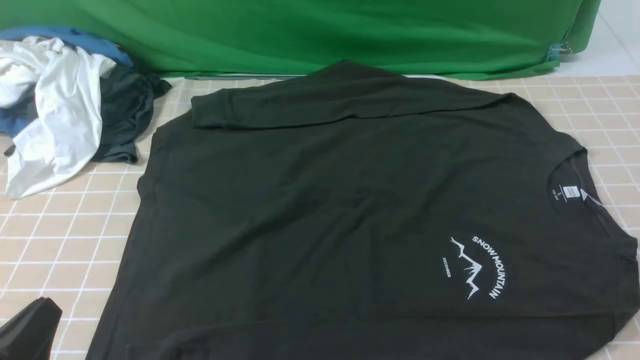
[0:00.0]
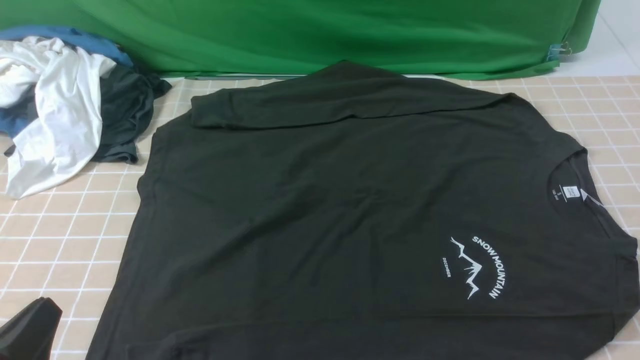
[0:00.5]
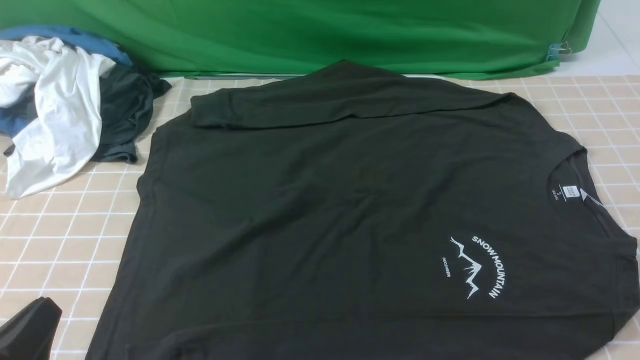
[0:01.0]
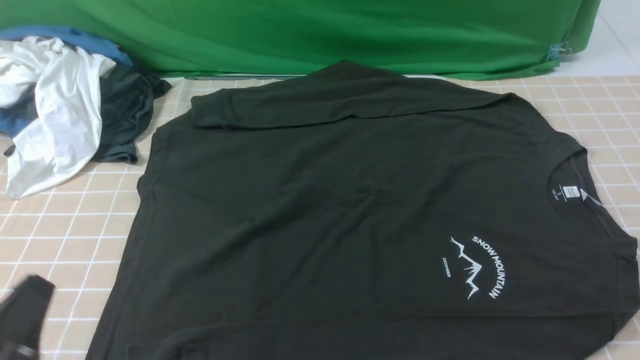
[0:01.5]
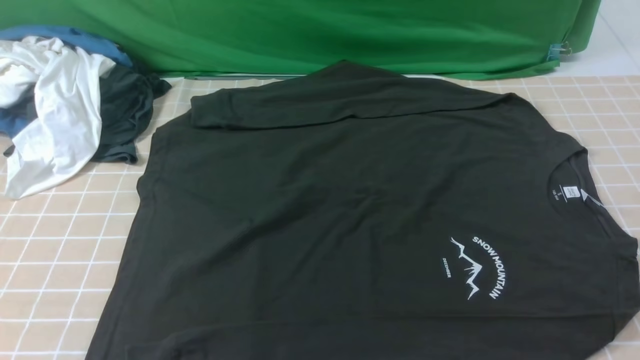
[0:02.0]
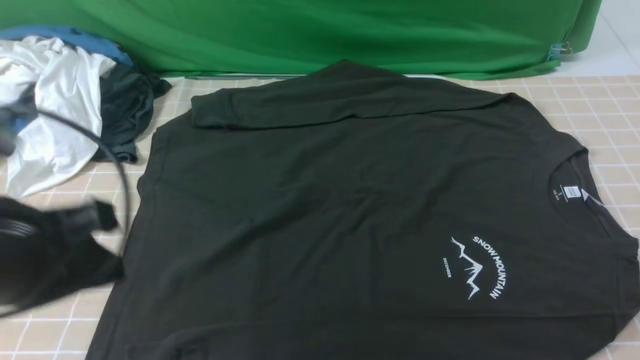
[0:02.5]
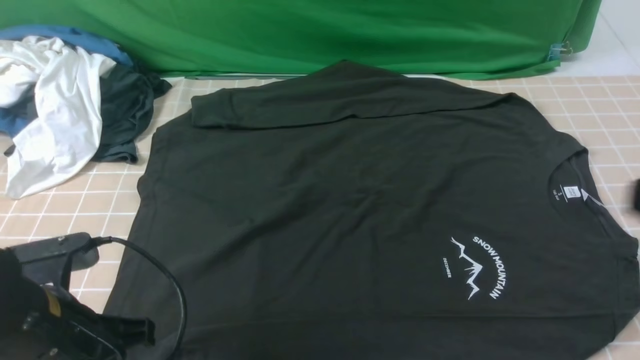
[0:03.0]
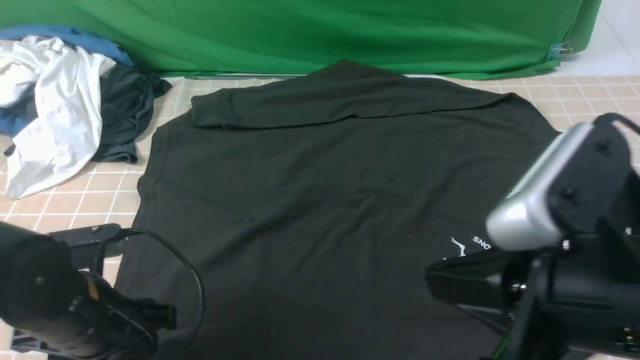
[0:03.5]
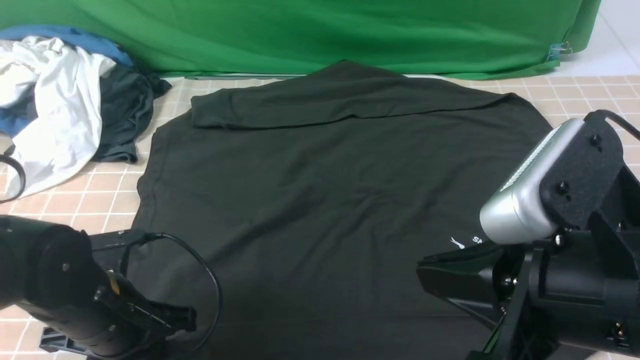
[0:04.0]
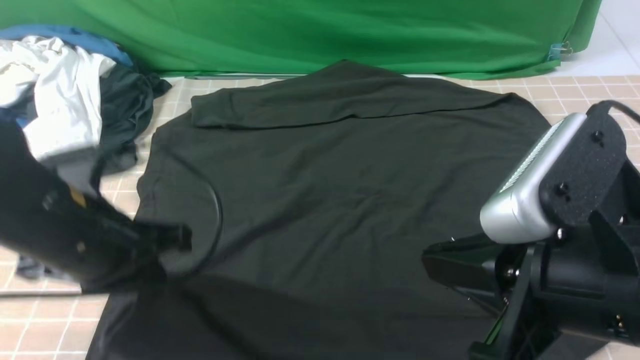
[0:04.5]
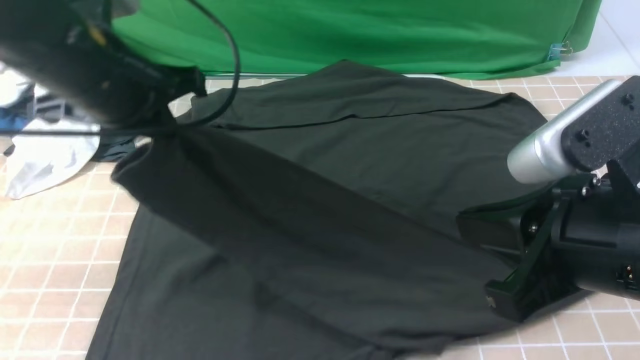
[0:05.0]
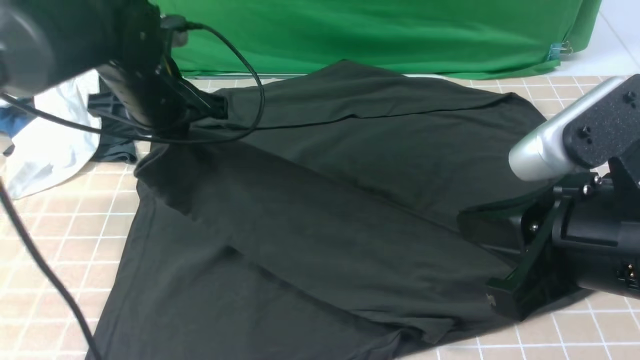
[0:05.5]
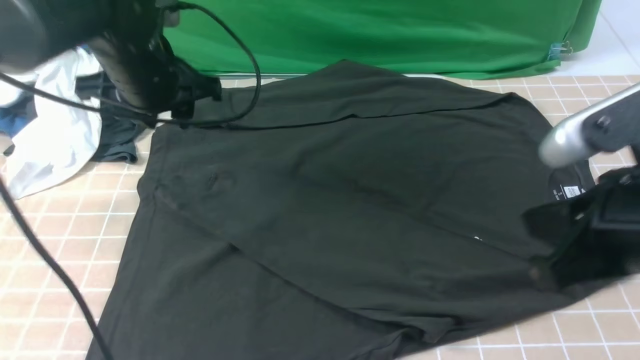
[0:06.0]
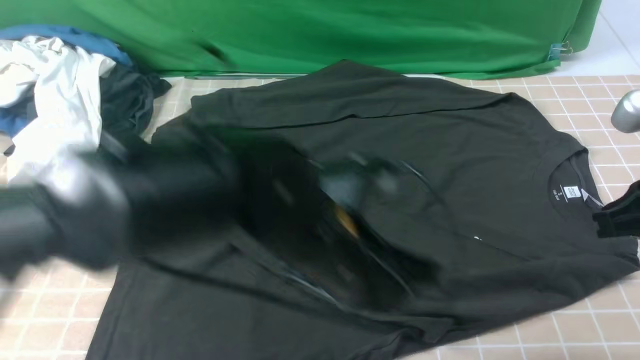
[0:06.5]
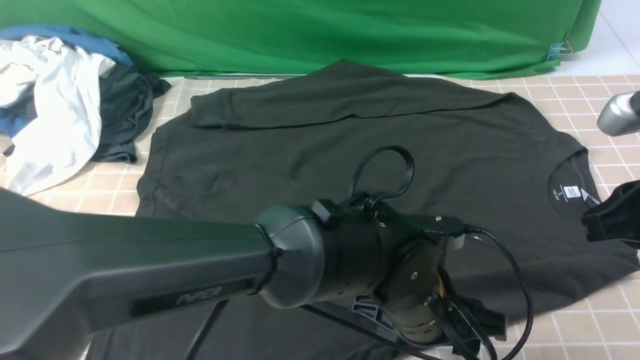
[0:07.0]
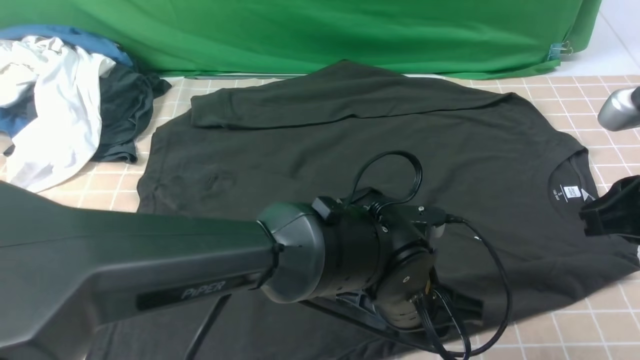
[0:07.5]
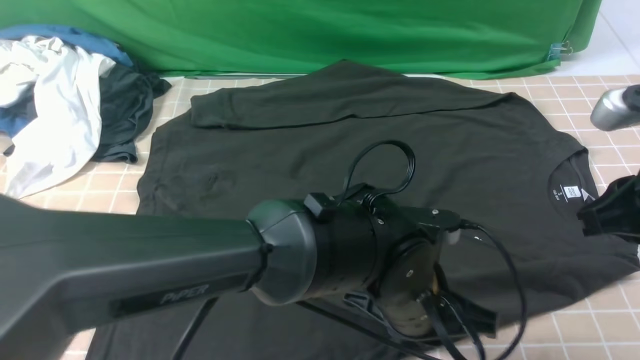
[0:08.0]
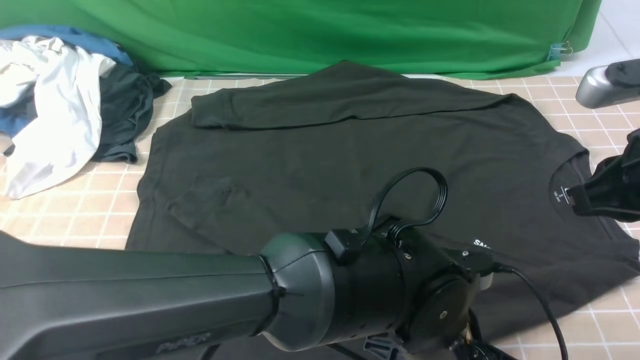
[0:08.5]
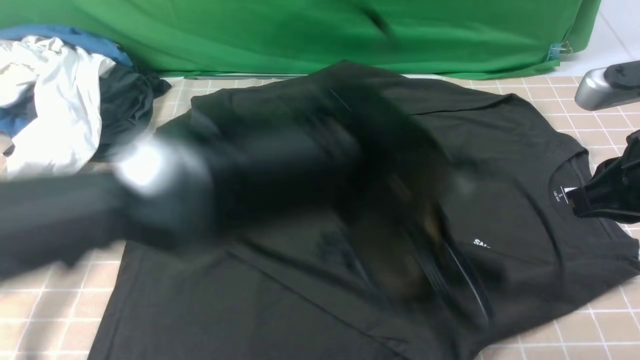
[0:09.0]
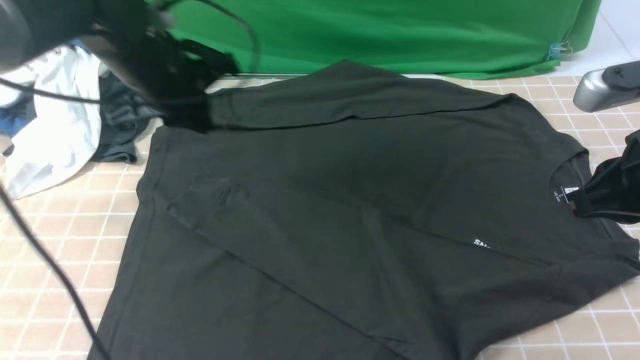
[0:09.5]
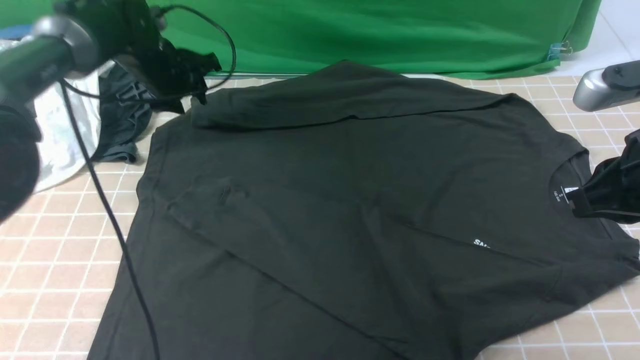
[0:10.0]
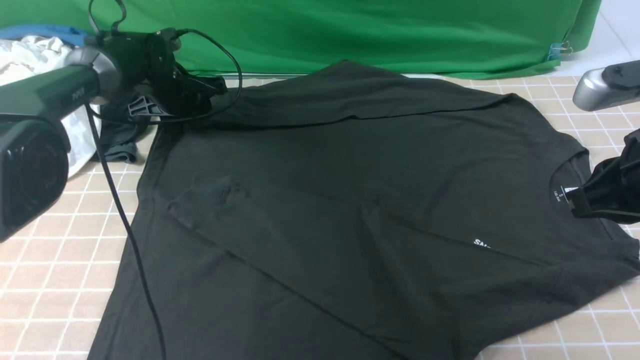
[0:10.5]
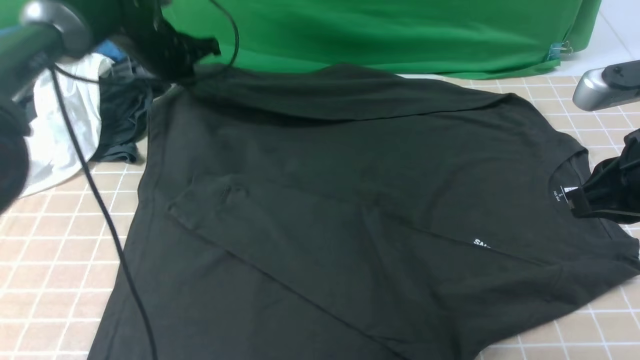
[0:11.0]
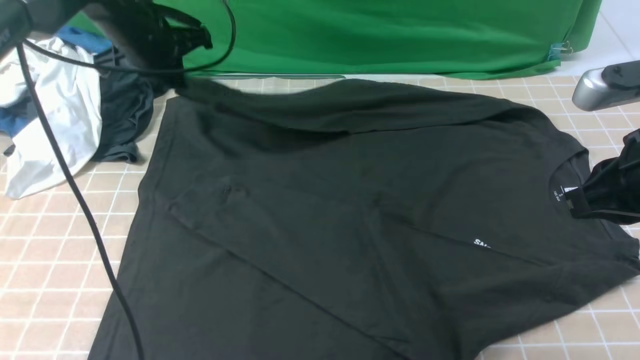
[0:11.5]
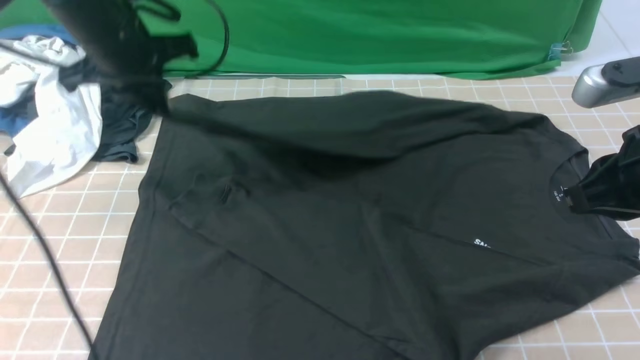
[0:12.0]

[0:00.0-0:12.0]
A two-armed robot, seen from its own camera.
Step, 0:00.0 to 0:04.0: use the left arm to clamp the cuff closest to it.
Step, 0:04.5 to 0:05.5: use the left arm to drag and place the cuff at the centered position on the left edge of the fabric.
Step, 0:06.0 to 0:10.5: use the left arm to clamp the cuff farthest from it.
0:00.0 to 0:02.0: The left gripper travels upward by about 15 cm.
0:02.0 to 0:04.0: The right gripper heads to the left and upward, covering about 20 cm, and closes up; the left gripper shifts roughly 20 cm forward and downward, and opens its fingers.
0:04.0 to 0:06.0: The right gripper shifts approximately 5 cm to the right. Meanwhile the left gripper heads forward and upward, covering some 20 cm.
0:06.0 to 0:08.0: The left gripper moves to the right, backward and downward, about 30 cm, and closes; the right gripper travels to the right and forward by some 5 cm.
0:08.0 to 0:10.0: The left gripper travels to the left and forward by roughly 40 cm, and opens.
0:10.0 to 0:12.0: The left gripper shifts about 15 cm backward and upward, and closes its fingers.

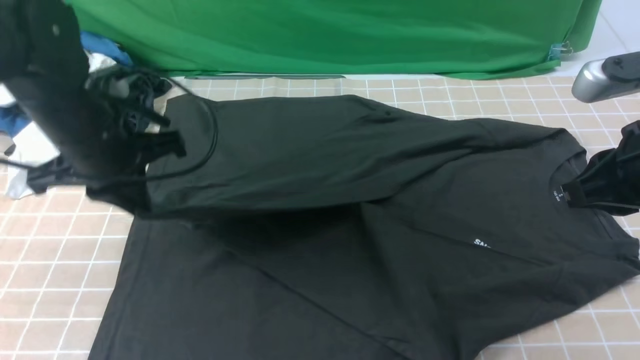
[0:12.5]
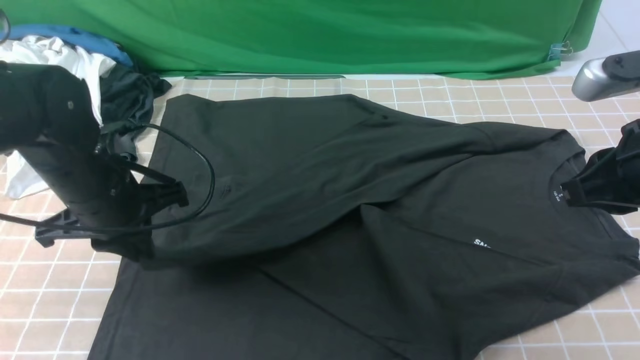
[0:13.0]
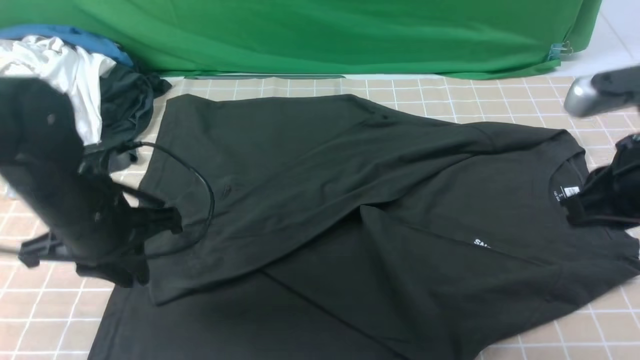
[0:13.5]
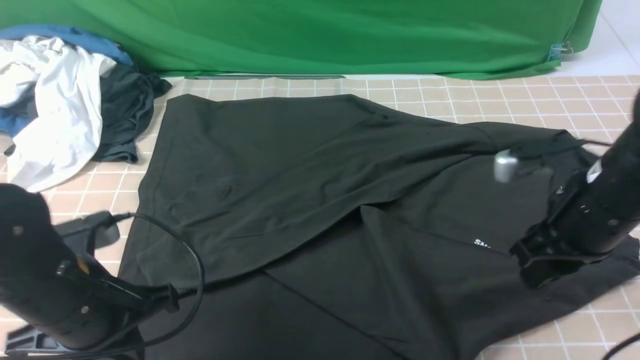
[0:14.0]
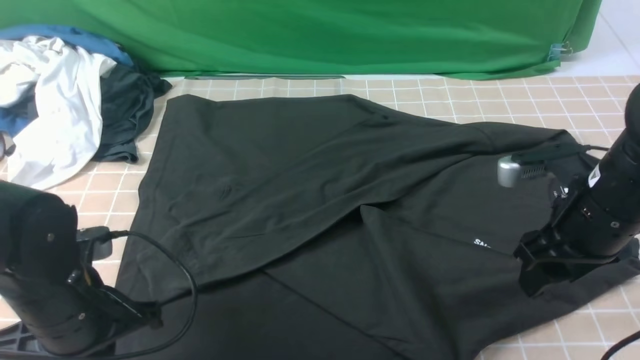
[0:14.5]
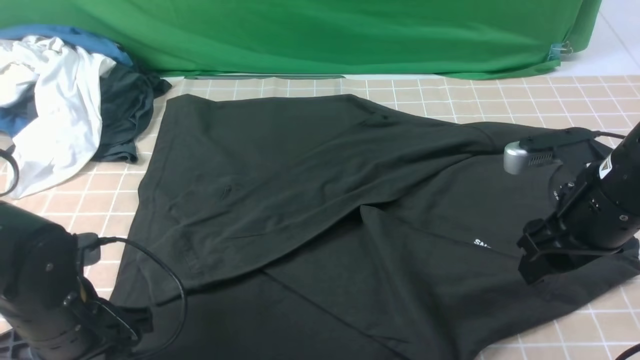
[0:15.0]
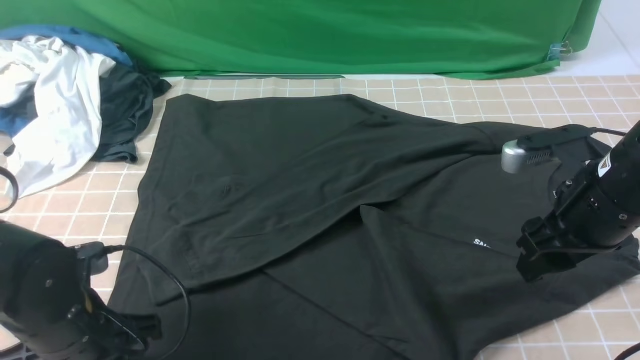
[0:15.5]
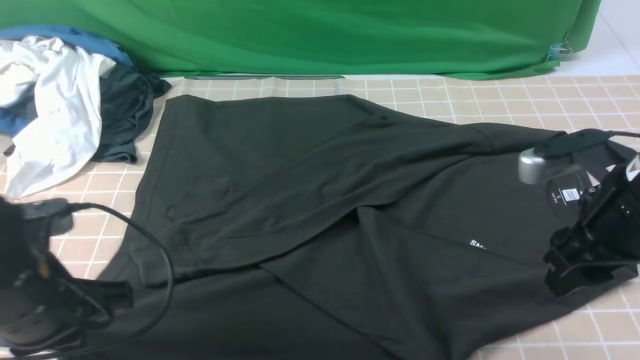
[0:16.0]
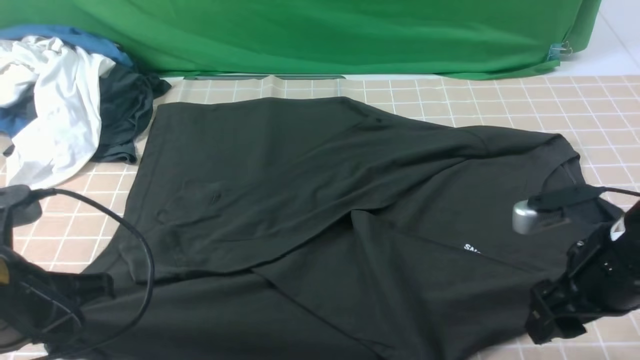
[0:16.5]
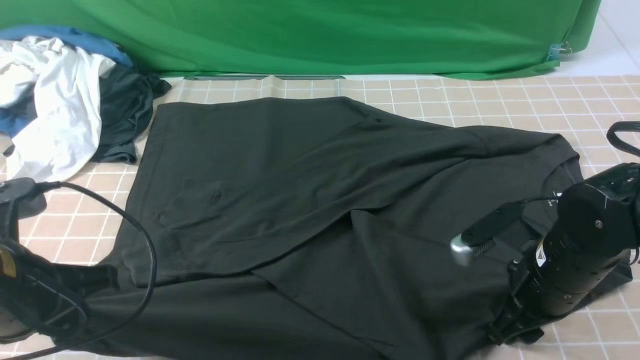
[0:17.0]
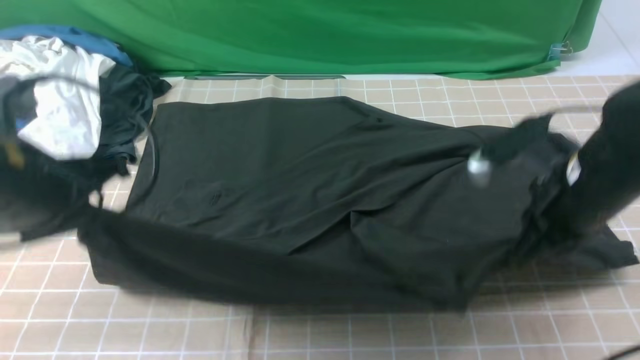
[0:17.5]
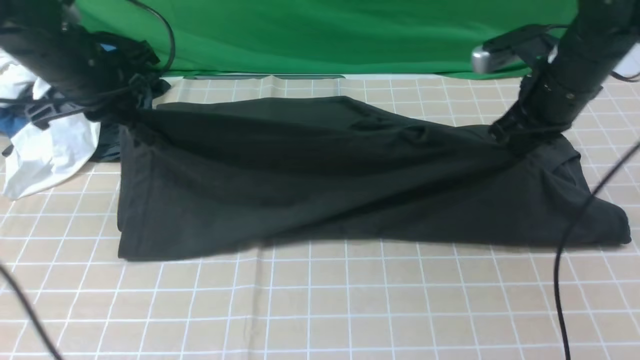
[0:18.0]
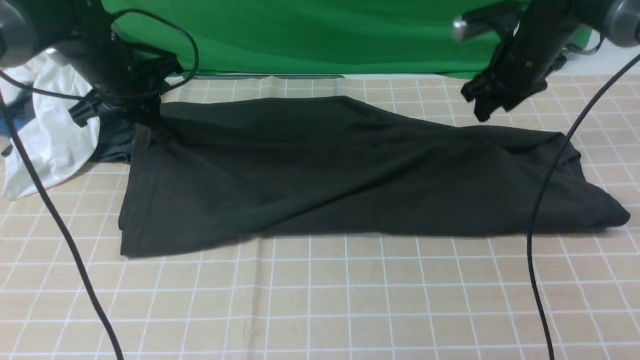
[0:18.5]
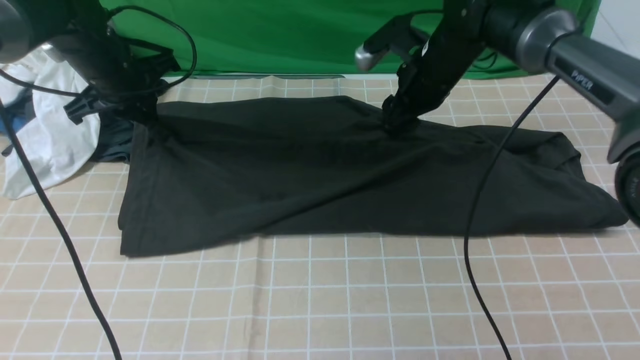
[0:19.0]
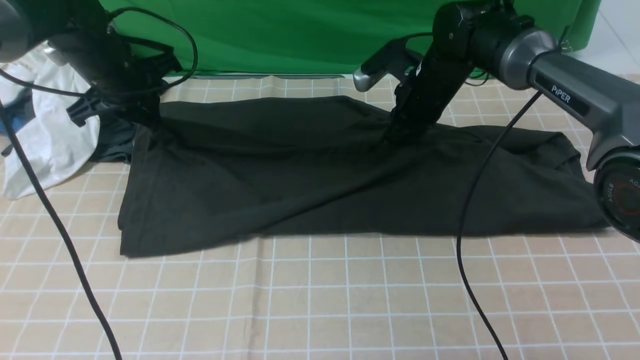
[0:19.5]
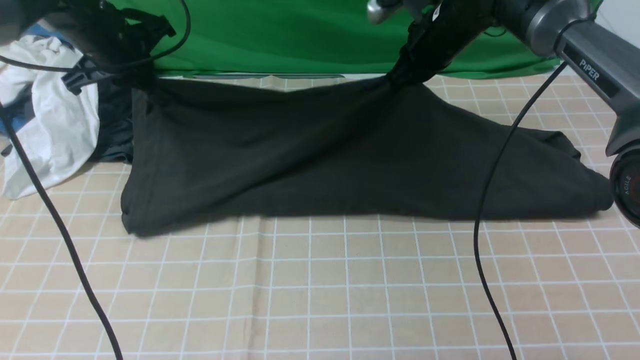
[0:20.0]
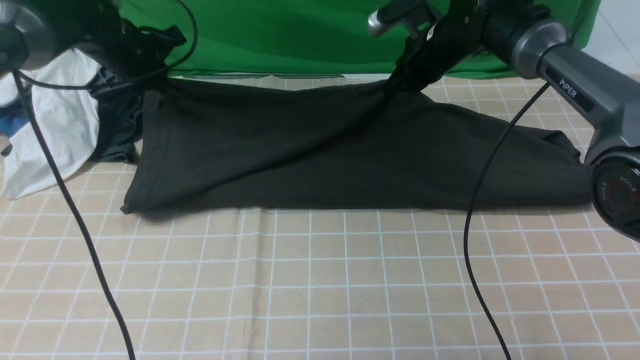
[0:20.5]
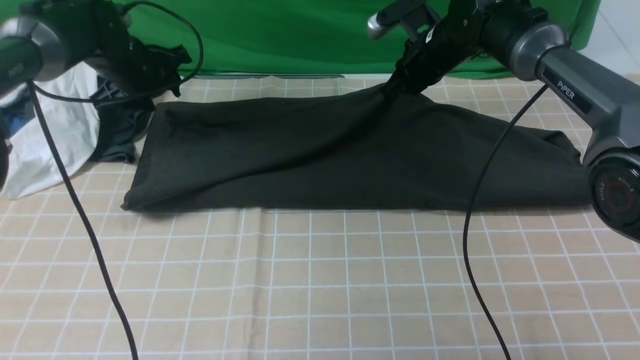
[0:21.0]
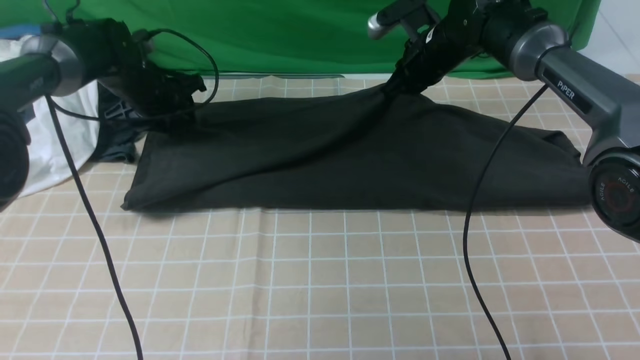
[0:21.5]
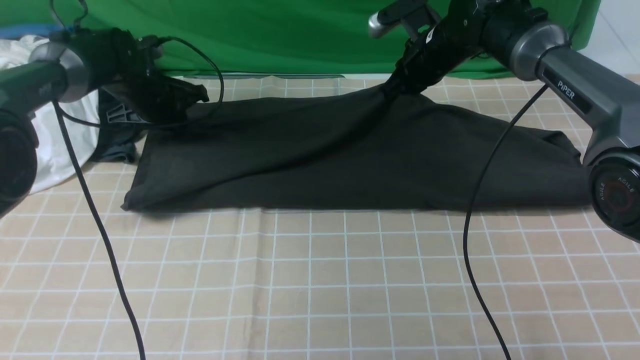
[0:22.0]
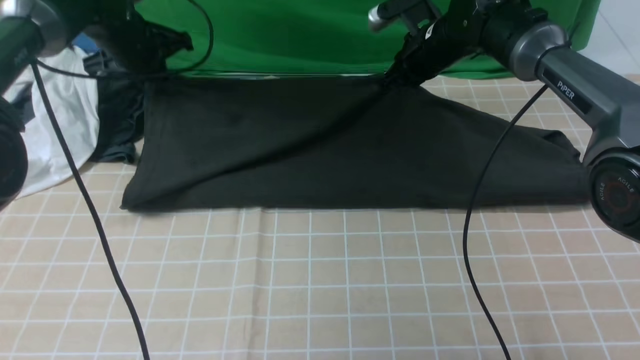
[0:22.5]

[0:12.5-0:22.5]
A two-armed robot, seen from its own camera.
Step, 0:13.5 to 0:17.0: use both arms simultaneously to clamp the lower edge of the clothing fabric.
0:12.5 to 0:14.5: The right gripper is displaced downward by roughly 10 cm, and opens. The left gripper heads backward and downward, covering about 15 cm.
0:14.5 to 0:16.5: The left gripper is displaced upward by about 10 cm, and opens and closes again.
0:16.5 to 0:18.5: Both grippers travel together forward, some 25 cm. The right gripper closes, then opens again.
0:18.5 to 0:20.5: The right gripper is displaced to the left by about 5 cm, and closes.
0:20.5 to 0:22.5: The left gripper opens, then closes again.
